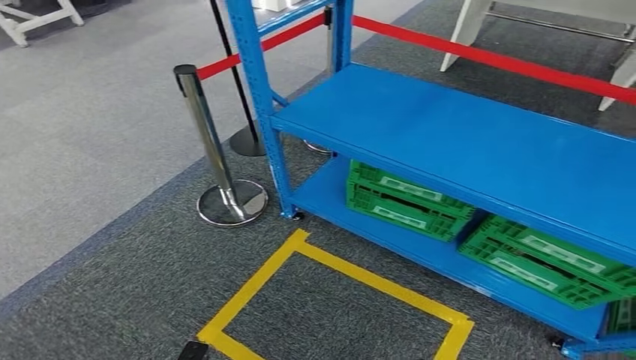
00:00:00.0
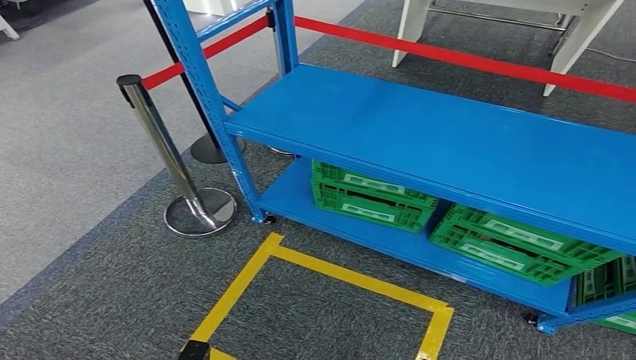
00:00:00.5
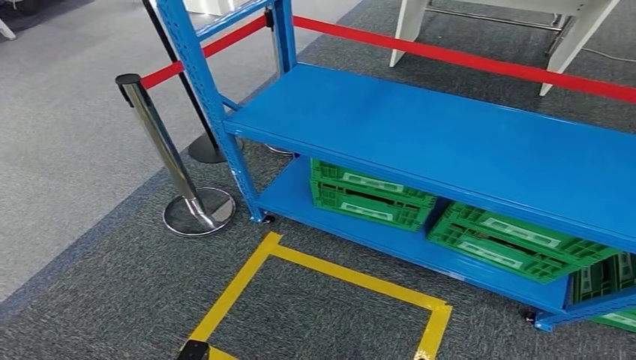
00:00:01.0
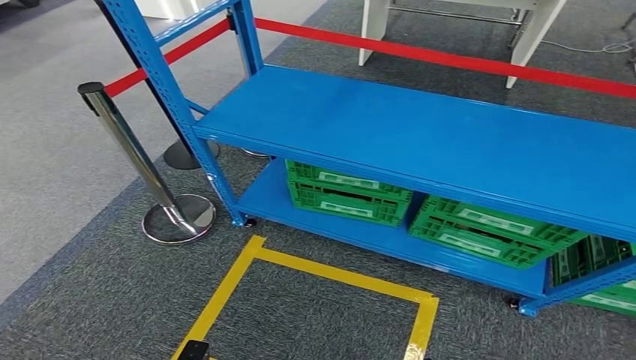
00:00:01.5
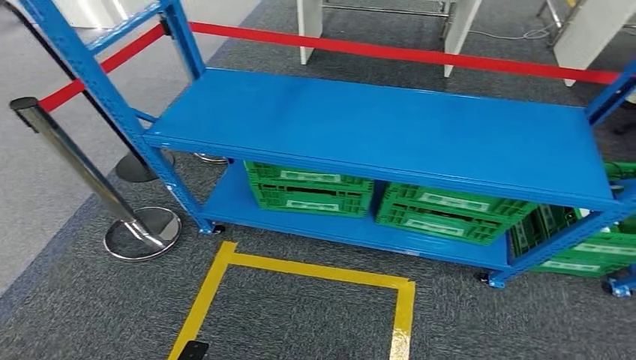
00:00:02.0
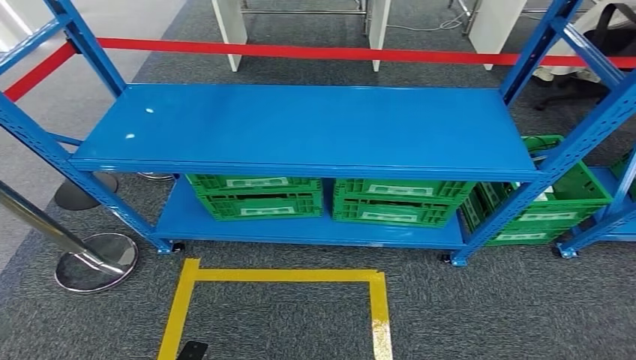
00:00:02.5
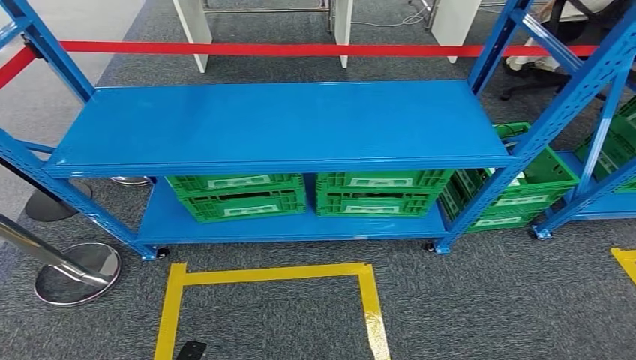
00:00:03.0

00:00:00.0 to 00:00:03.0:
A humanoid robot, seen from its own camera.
Step, 00:00:00.0 to 00:00:03.0: Return to the initial position at the workbench.
